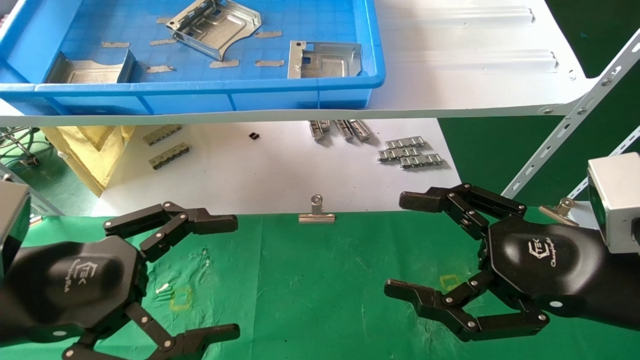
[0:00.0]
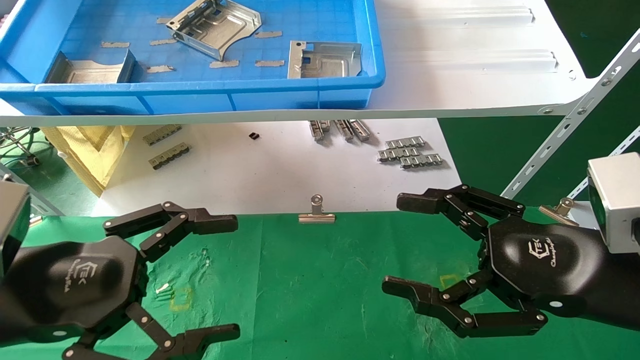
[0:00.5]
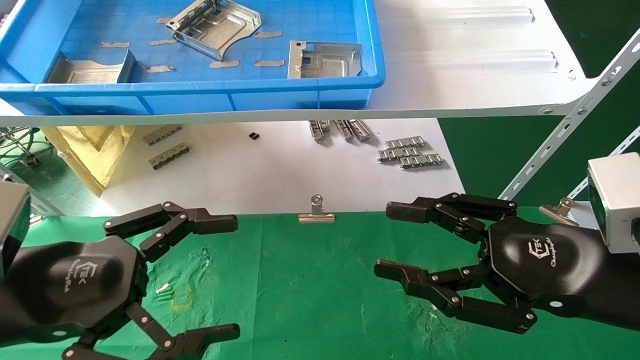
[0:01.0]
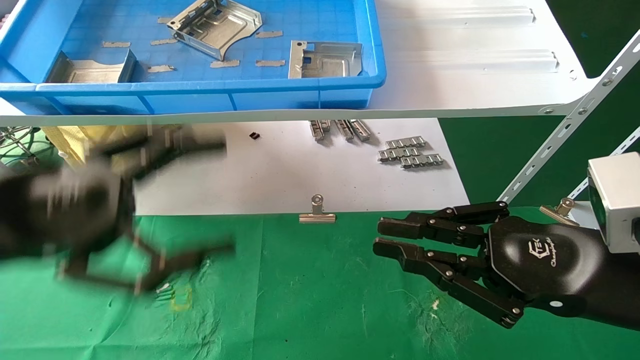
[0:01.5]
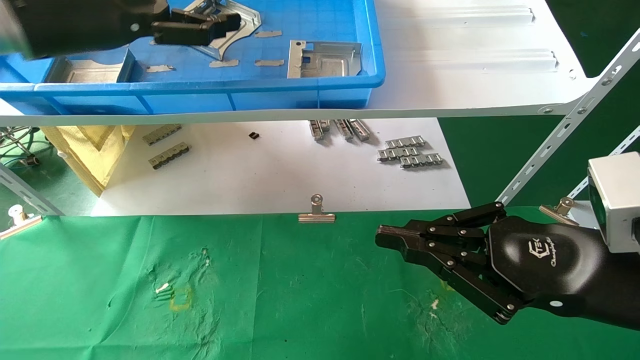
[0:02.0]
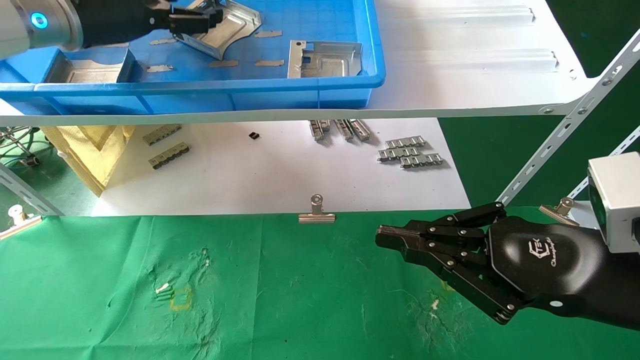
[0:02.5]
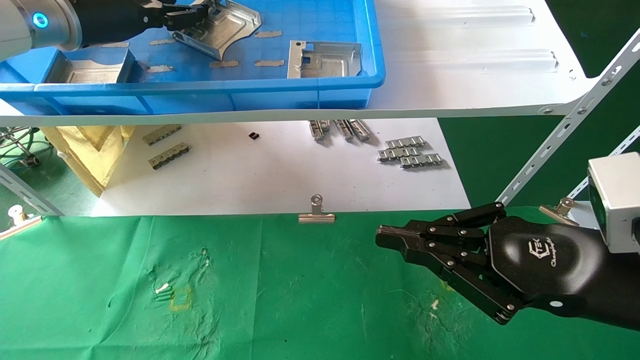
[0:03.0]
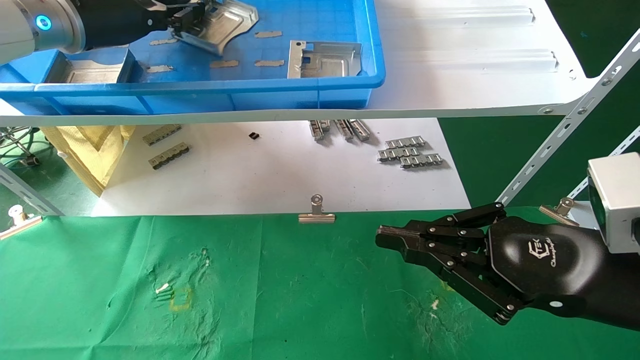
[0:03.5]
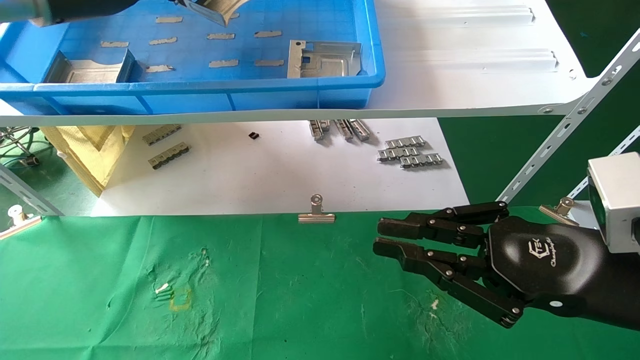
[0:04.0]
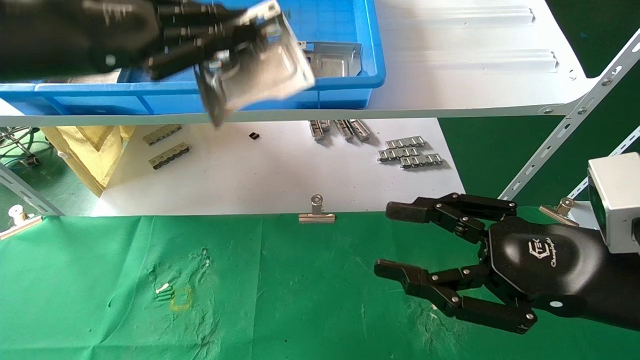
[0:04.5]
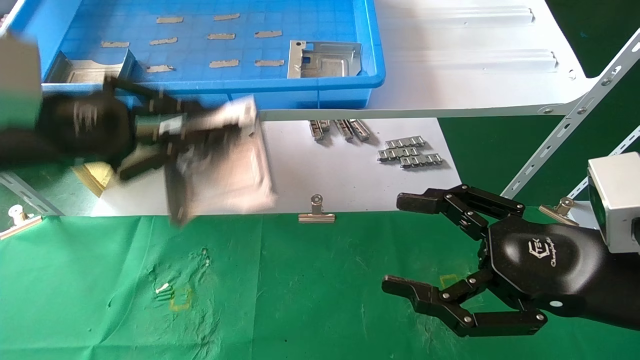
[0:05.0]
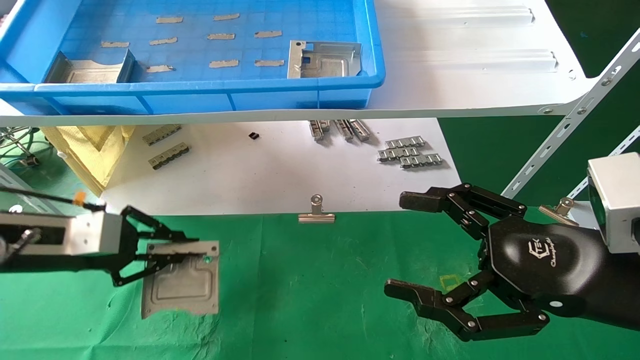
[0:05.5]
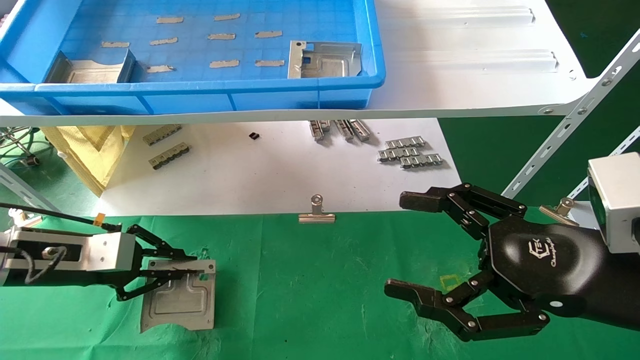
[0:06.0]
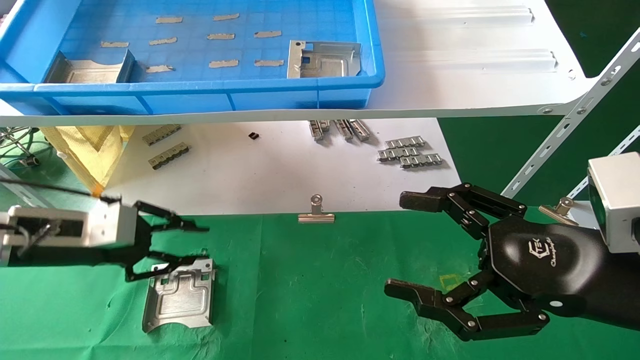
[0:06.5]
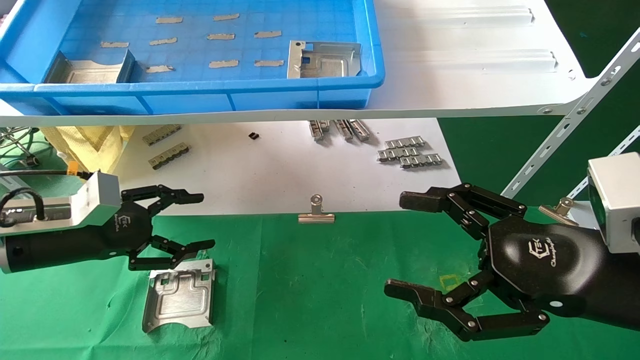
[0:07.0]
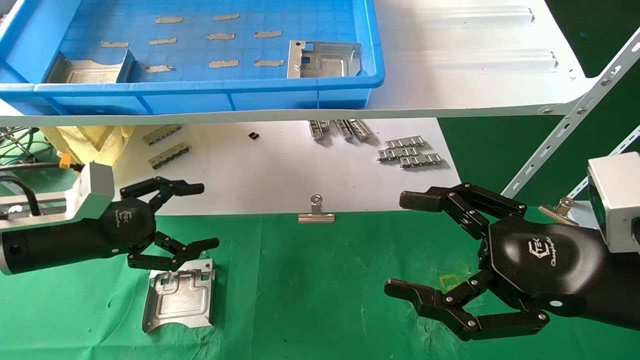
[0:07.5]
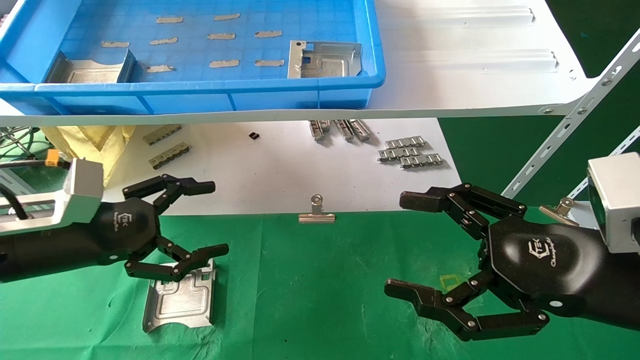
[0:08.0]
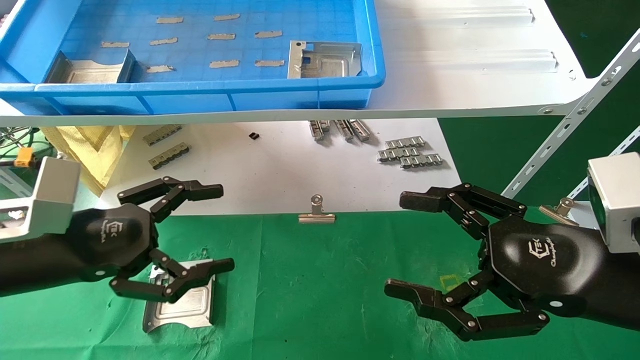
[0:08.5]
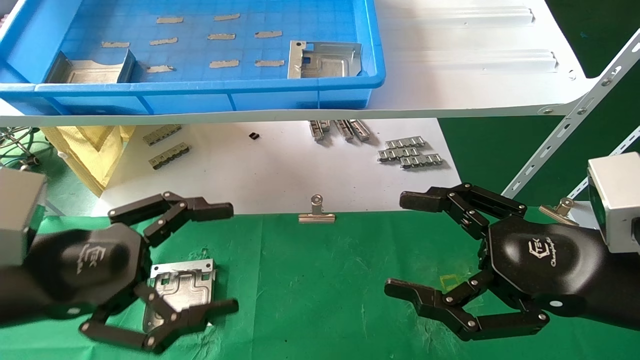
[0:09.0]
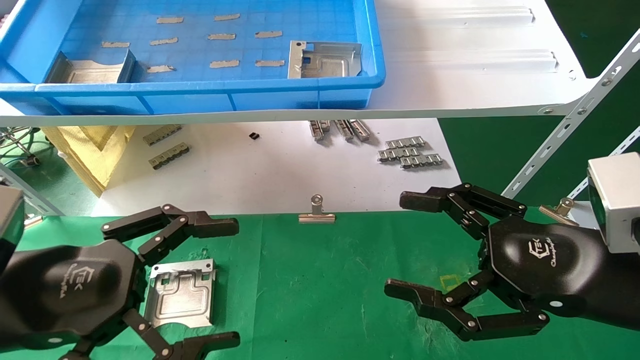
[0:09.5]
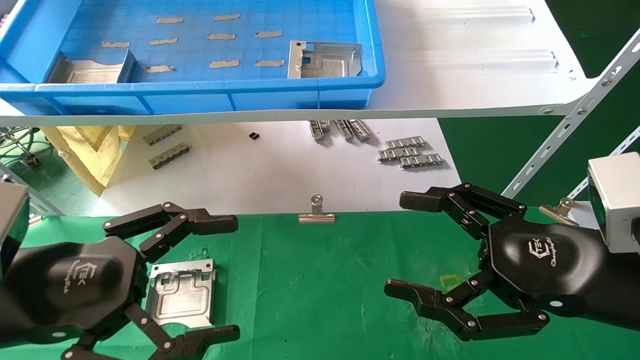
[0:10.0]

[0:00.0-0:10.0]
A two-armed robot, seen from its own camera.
Task of the whole recording: use the mechanical arm to pick up the parts and place them on the table.
Step, 0:04.0 to 0:06.0: Pick up the hard drive bracket from the feeding area.
Step, 0:06.5 to 0:08.5: Place the hard drive bracket into the box.
0:00.0 to 0:02.0: The left gripper moves upward and forward, roughly 25 cm. Meanwhile the right gripper closes its fingers.
0:02.0 to 0:04.0: The left gripper closes.
0:04.0 to 0:06.0: The left gripper shifts roughly 30 cm downward; the right gripper opens its fingers.
0:06.0 to 0:08.0: The left gripper shifts by about 5 cm, and opens up.
0:08.0 to 0:10.0: The left gripper is displaced backward by approximately 10 cm.

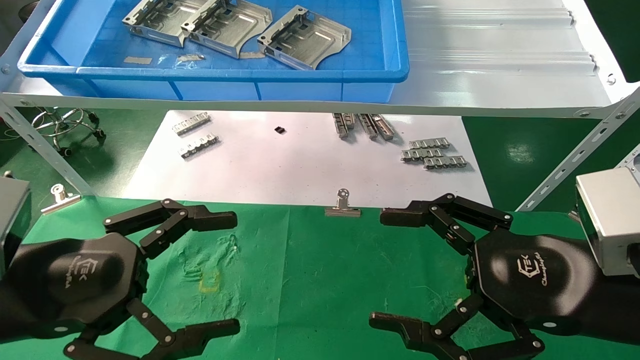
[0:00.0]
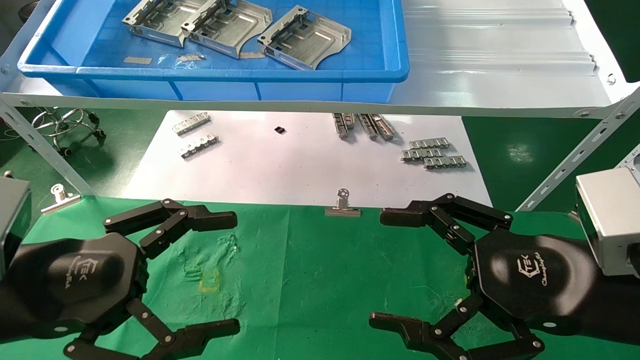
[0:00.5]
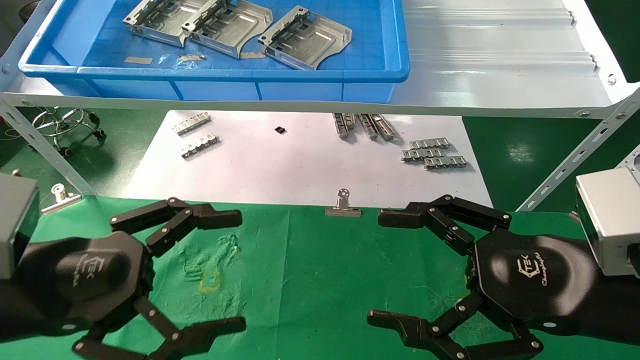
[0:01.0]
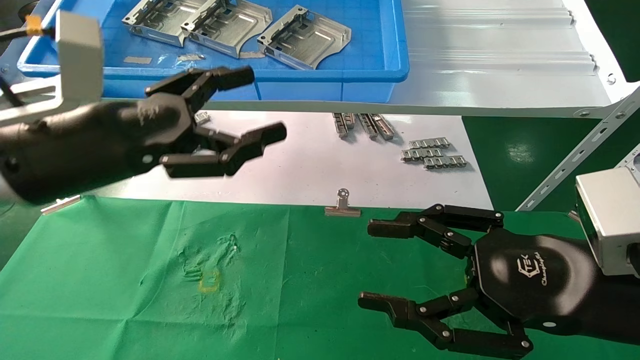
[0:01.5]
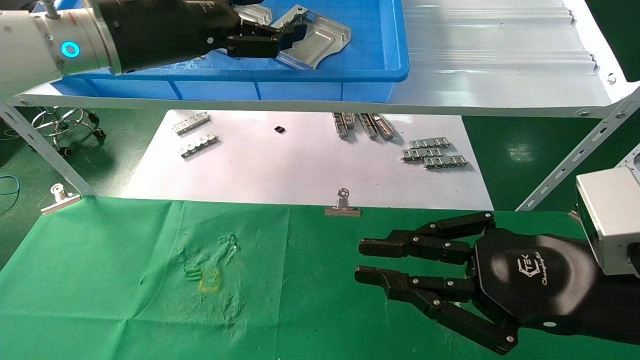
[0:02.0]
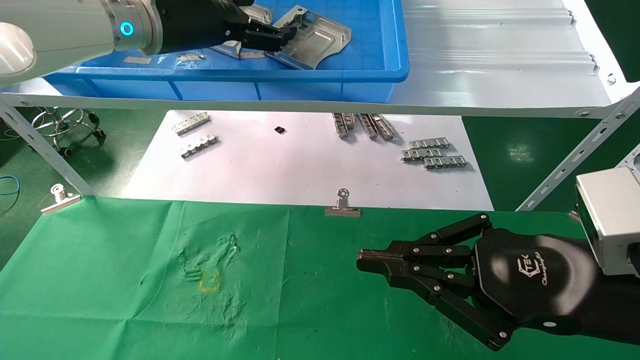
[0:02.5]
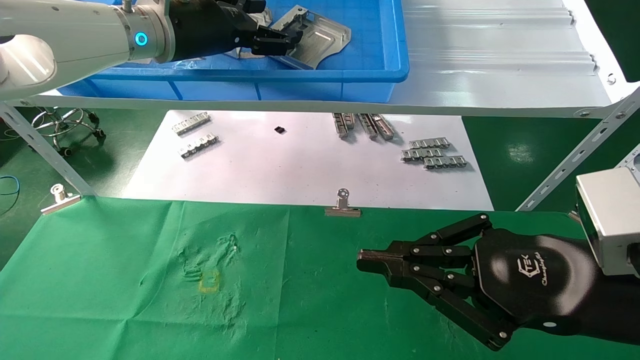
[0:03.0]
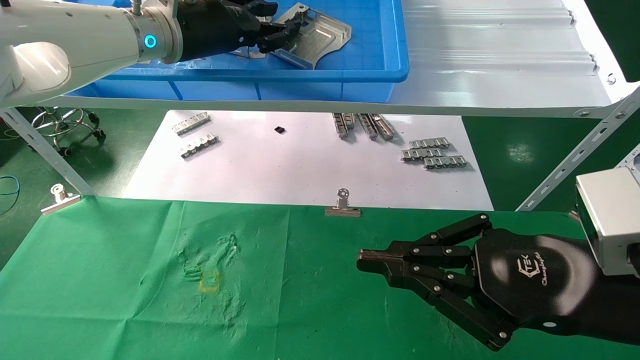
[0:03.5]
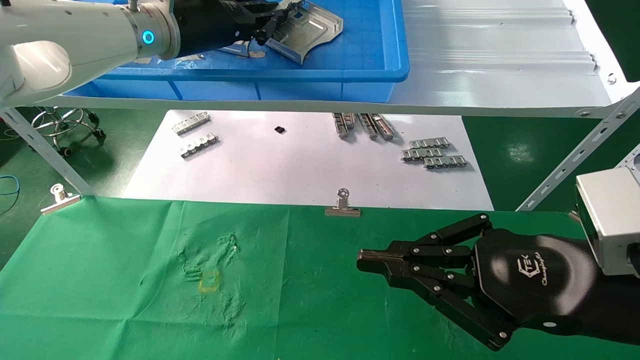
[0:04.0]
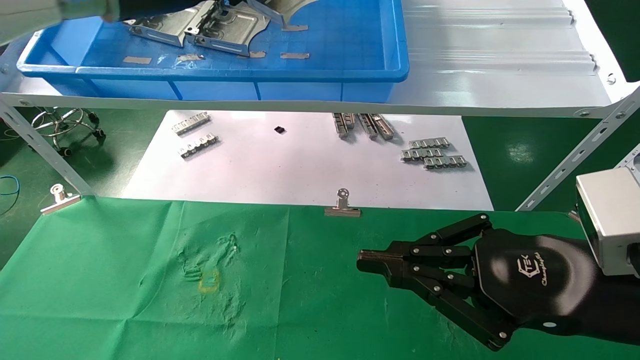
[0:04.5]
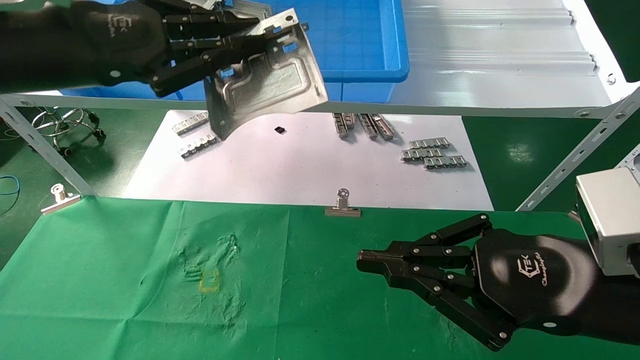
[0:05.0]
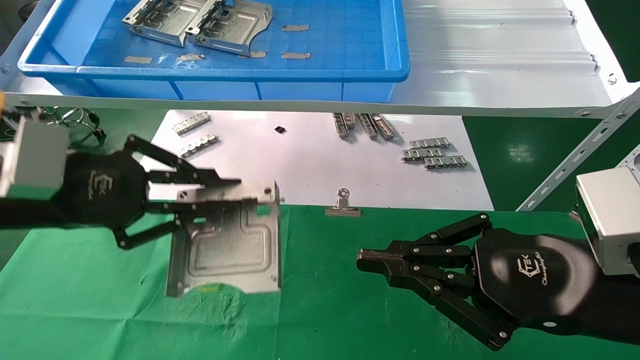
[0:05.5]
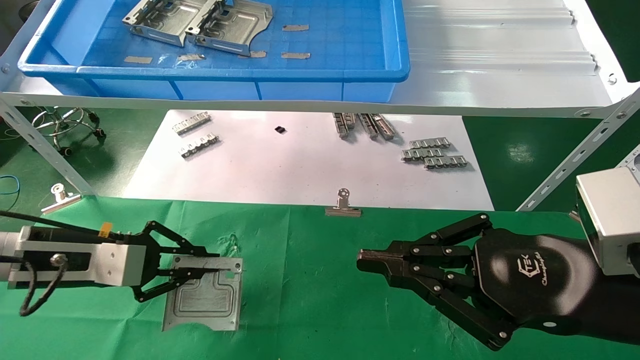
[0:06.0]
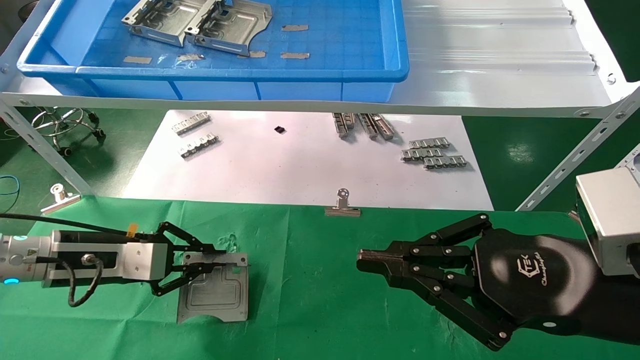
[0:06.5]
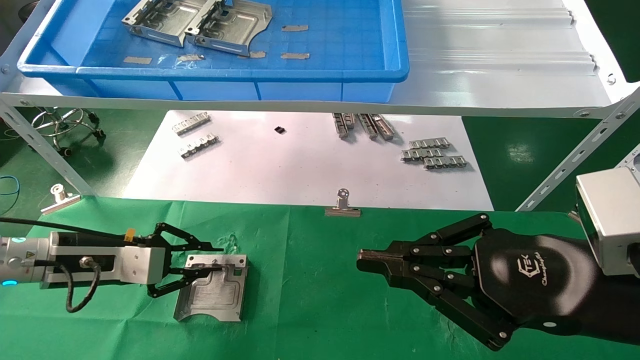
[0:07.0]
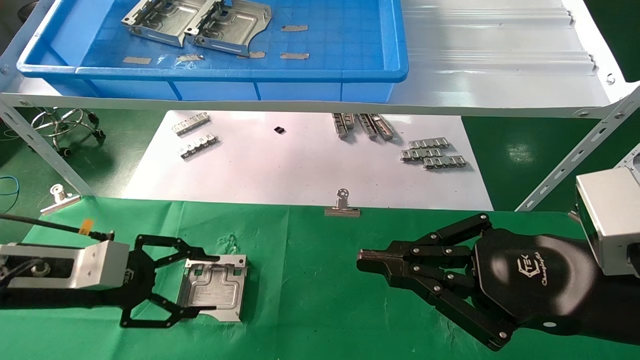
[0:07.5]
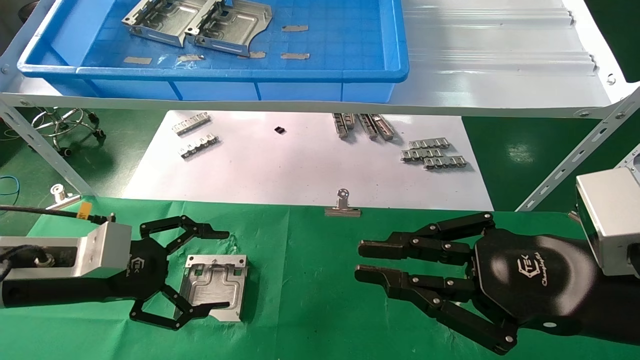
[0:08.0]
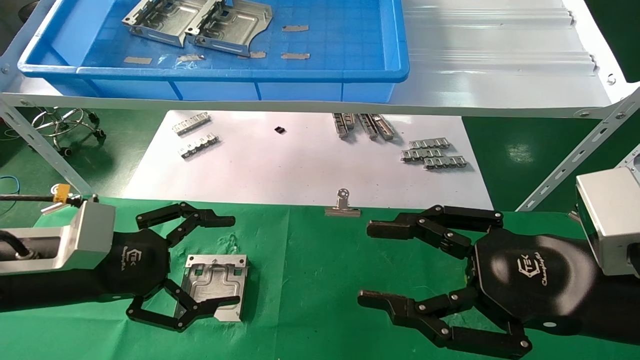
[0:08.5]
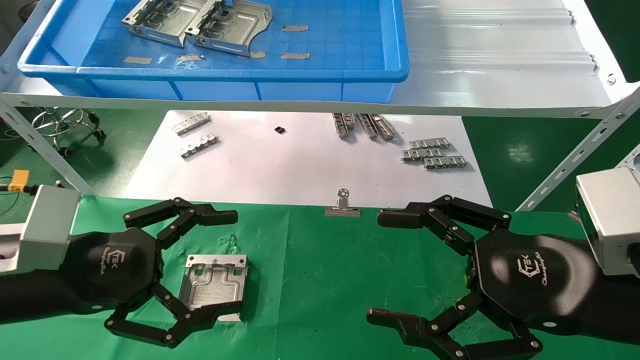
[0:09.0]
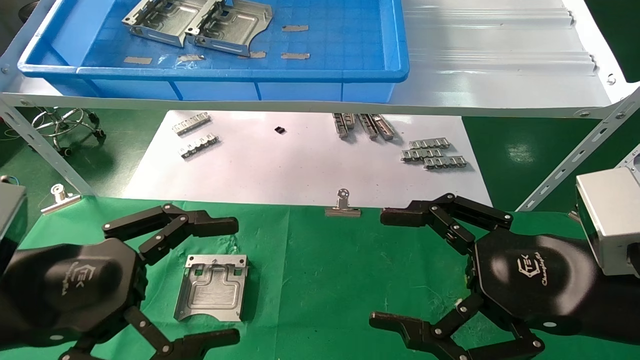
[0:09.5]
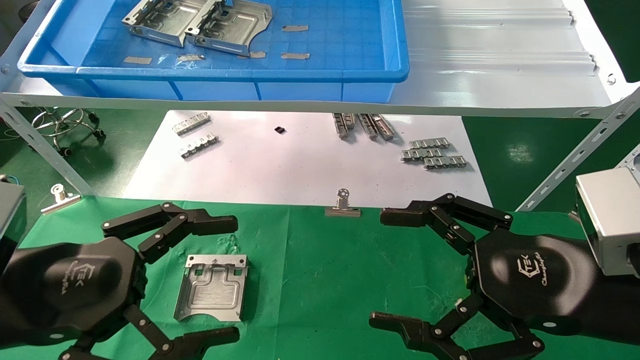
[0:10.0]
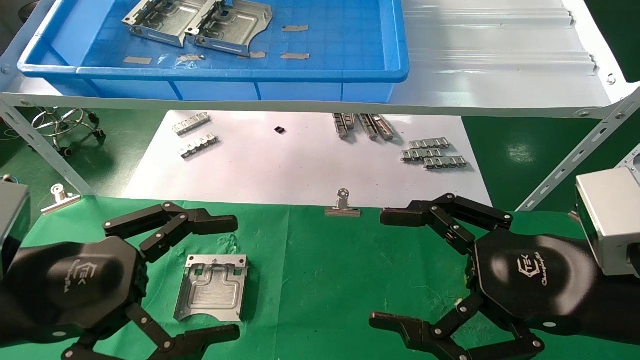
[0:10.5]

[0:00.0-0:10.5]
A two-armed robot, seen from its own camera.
Task of the whole recording: use the mechanical arm to pick up the parts and place them on the table.
Step, 0:01.5 to 0:04.0: Pick up the hard drive bracket from the feeding area.
Step, 0:04.5 to 0:06.5: Place the hard drive bracket into the box.
0:00.0 to 0:02.0: The left gripper goes about 25 cm upward and forward. The right gripper closes its fingers.
0:02.0 to 0:04.0: The left gripper goes approximately 5 cm forward, and closes.
0:04.0 to 0:06.5: The left gripper heads downward and to the left, covering approximately 30 cm.
0:06.5 to 0:08.5: The right gripper opens its fingers; the left gripper heads backward, covering some 10 cm, and opens its fingers.
0:08.5 to 0:10.5: The right gripper opens up; the left gripper moves backward, approximately 10 cm.
